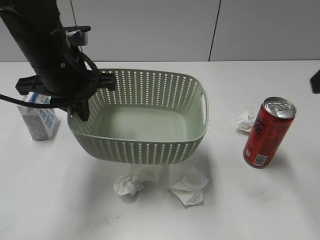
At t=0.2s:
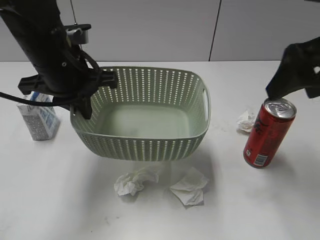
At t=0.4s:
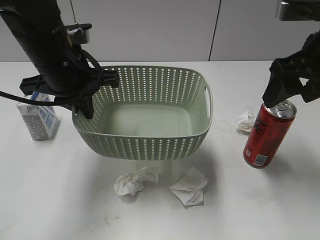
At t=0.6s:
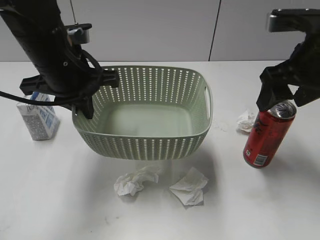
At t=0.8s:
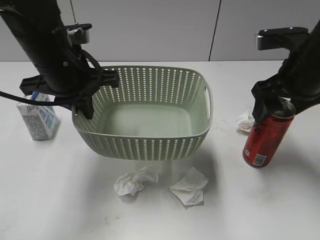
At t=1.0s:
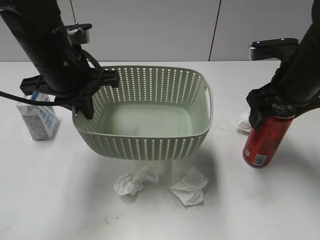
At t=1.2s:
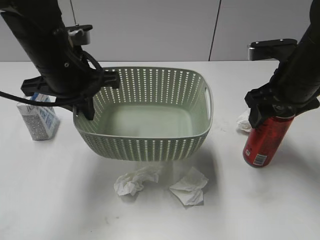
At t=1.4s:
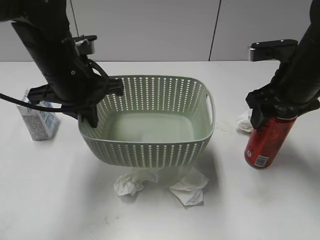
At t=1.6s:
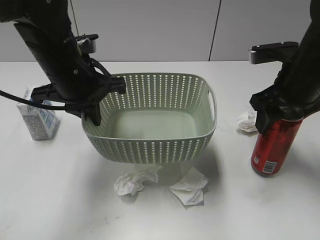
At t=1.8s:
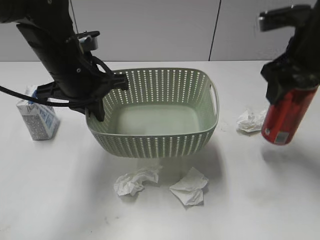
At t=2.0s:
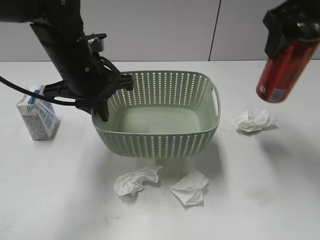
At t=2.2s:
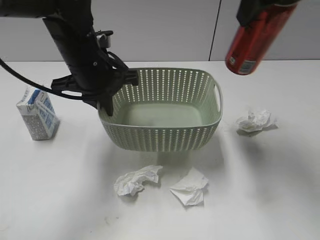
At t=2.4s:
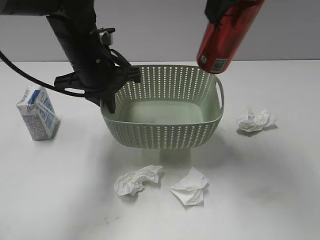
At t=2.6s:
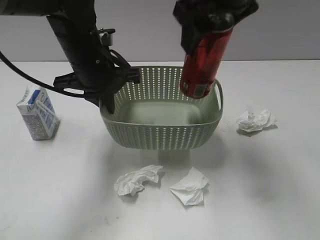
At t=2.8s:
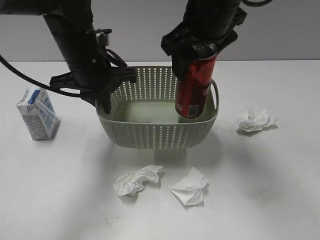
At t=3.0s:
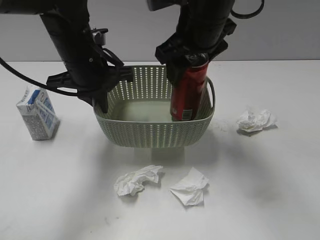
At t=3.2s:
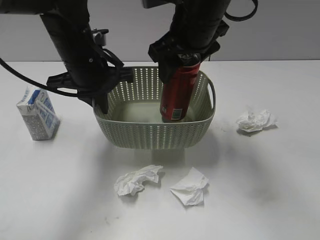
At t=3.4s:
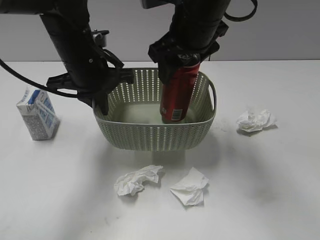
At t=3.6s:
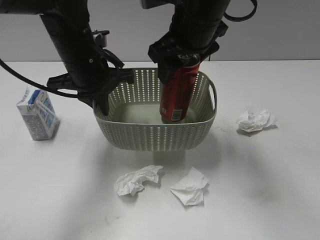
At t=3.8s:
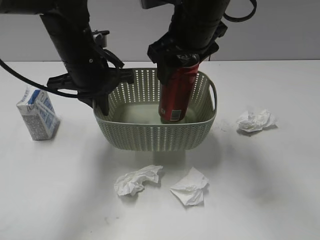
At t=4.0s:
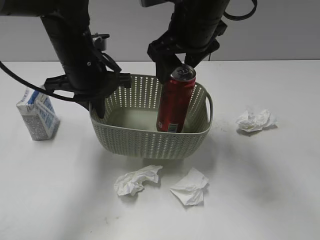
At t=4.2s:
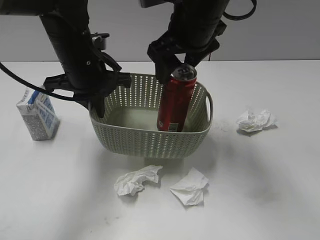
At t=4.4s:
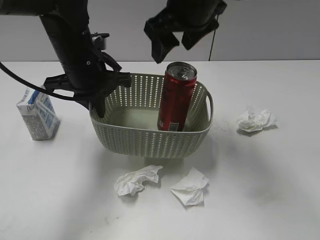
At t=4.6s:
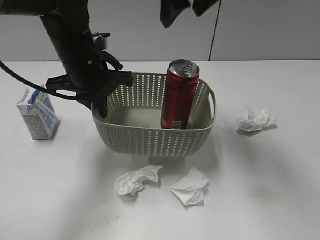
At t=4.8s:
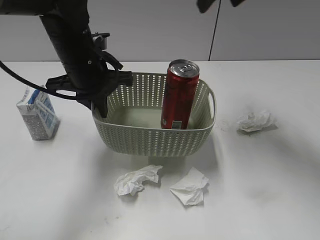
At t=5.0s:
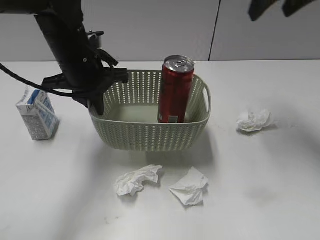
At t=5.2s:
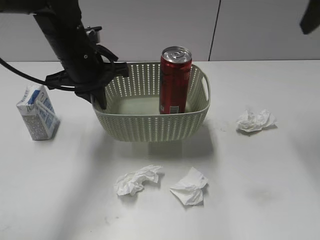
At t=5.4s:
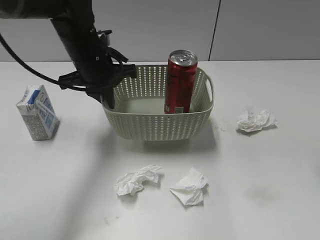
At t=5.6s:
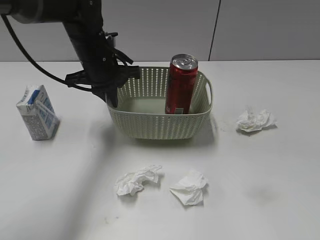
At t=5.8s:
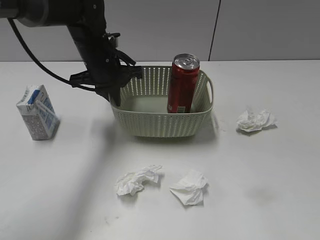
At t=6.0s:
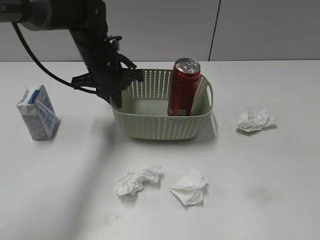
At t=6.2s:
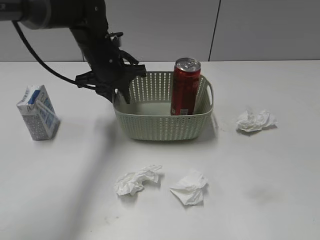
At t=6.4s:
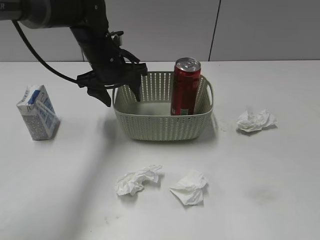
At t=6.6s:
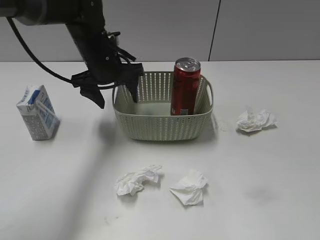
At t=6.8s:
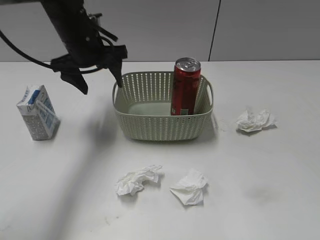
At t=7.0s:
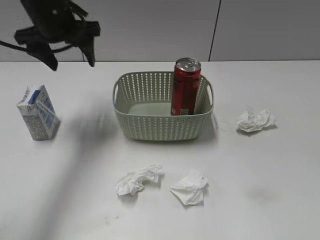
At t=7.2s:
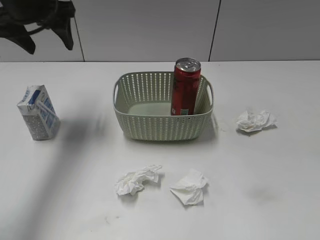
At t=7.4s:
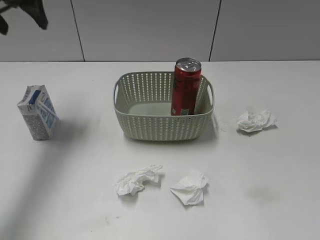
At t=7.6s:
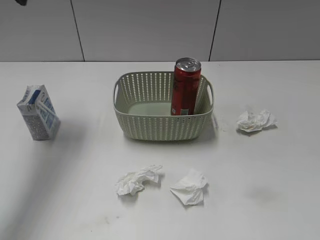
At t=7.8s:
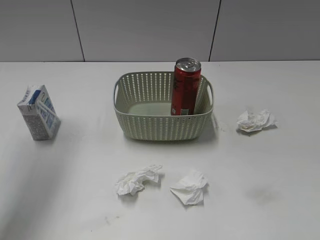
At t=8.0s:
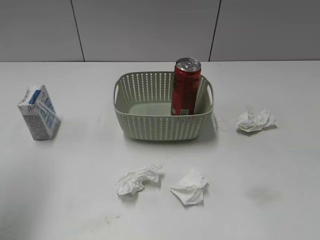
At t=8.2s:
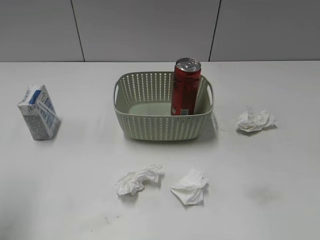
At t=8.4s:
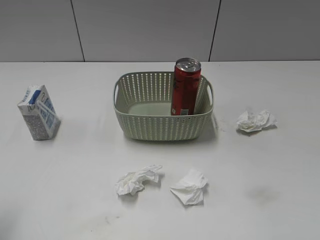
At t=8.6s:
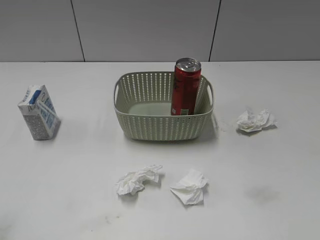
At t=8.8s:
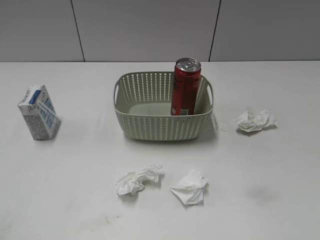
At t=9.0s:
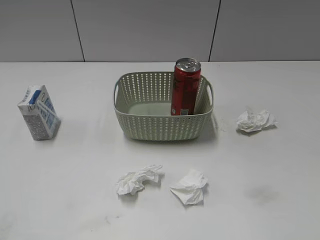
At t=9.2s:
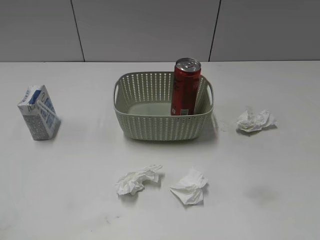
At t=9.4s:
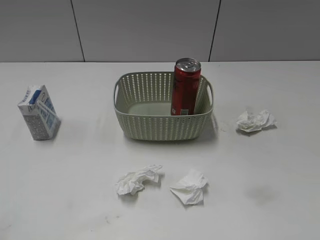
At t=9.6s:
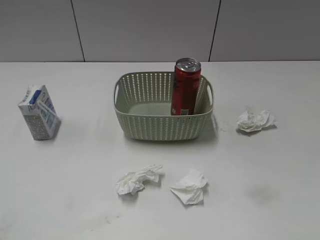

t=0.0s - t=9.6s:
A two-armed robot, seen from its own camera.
Step, t=0.0s - t=1.4s: Grasp the cola can with right gripper.
Step, t=1.6s - t=4.0s: Place the cola can in the basket with right gripper.
t=0.0s - t=1.6s: The right gripper travels downward and forward by roughly 15 cm.
t=1.6s - t=3.2s: The right gripper goes approximately 15 cm to the left.
t=3.2s - t=4.8s: The right gripper travels upward and to the right by approximately 10 cm.
t=4.8s - t=6.4s: The left gripper travels forward by approximately 5 cm, and opens its fingers. Meanwhile the right gripper is displaced backward and to the right by roughly 40 cm.
t=6.4s - t=8.0s: The right gripper moves downward, some 5 cm. The left gripper is displaced backward, to the left and upward by roughly 35 cm.
t=8.0s - t=9.6s: The left gripper goes roughly 25 cm backward and downward.
